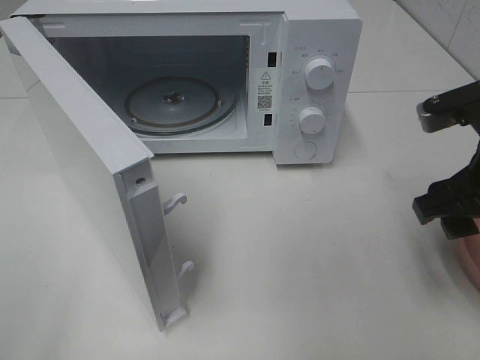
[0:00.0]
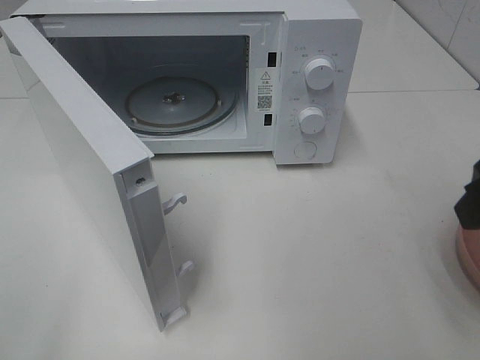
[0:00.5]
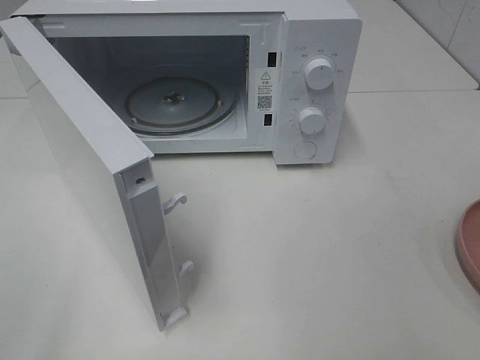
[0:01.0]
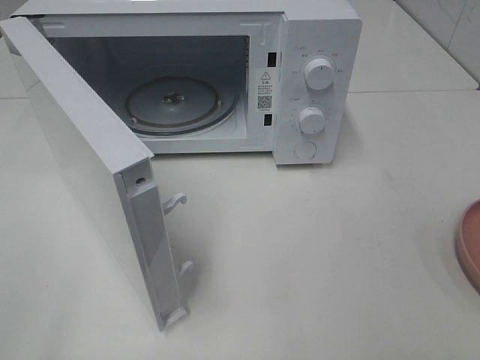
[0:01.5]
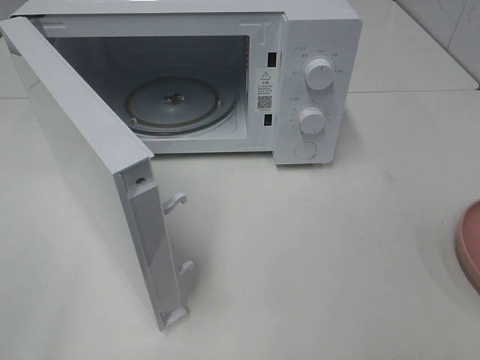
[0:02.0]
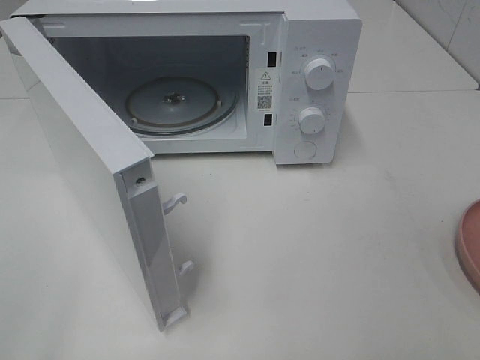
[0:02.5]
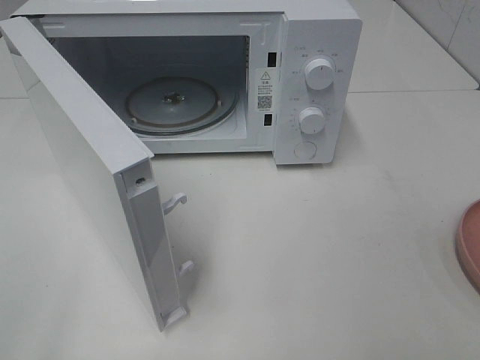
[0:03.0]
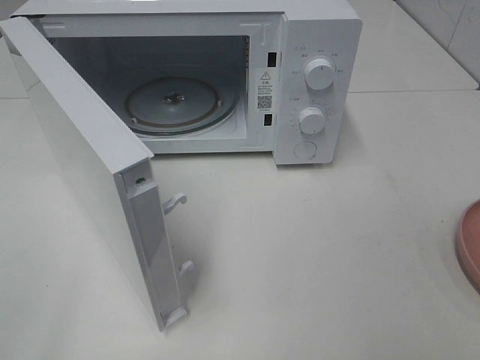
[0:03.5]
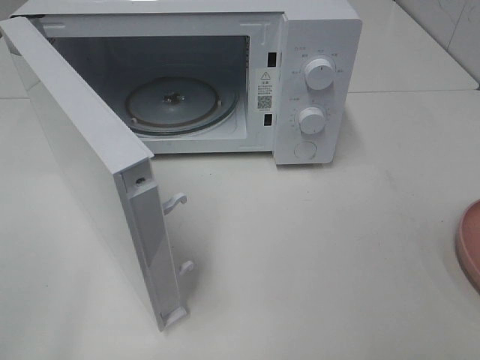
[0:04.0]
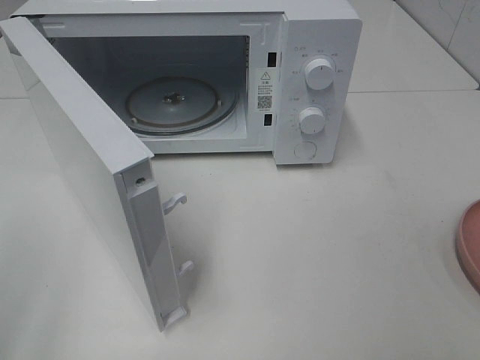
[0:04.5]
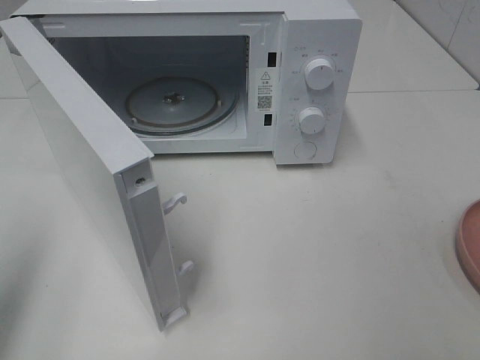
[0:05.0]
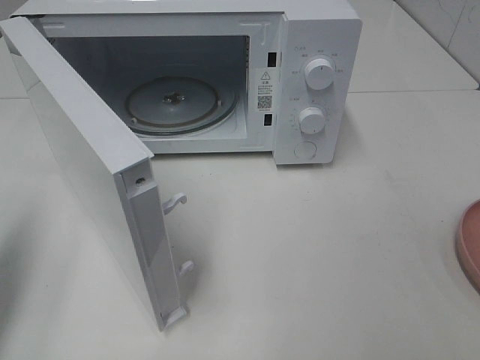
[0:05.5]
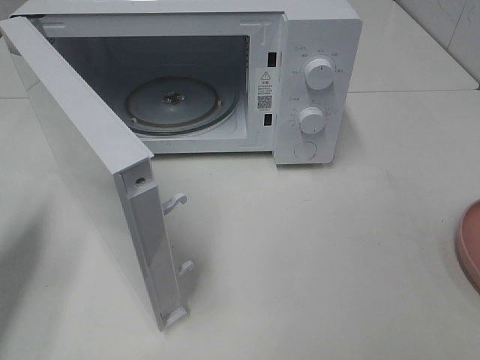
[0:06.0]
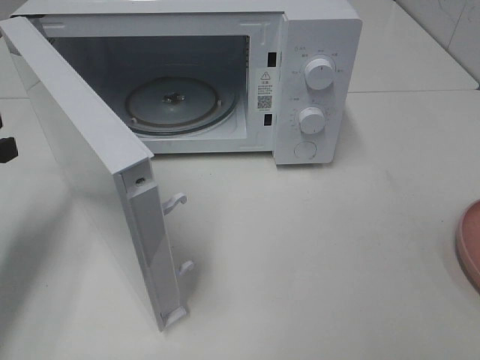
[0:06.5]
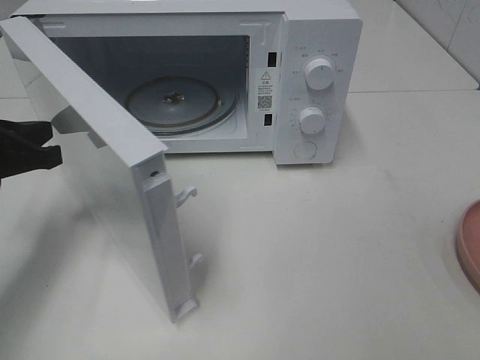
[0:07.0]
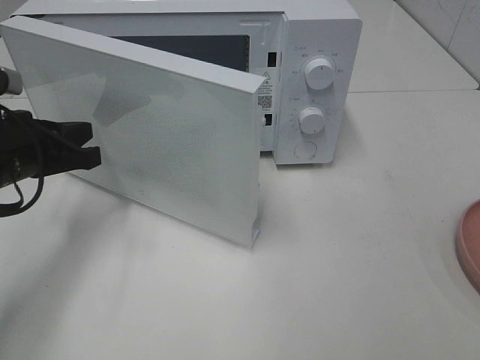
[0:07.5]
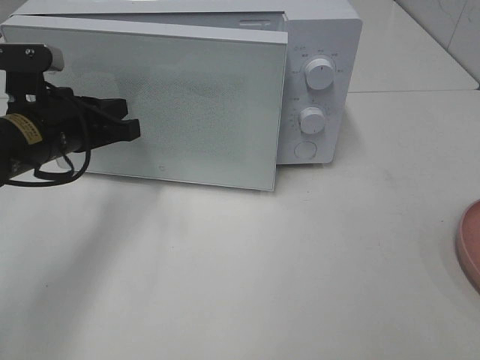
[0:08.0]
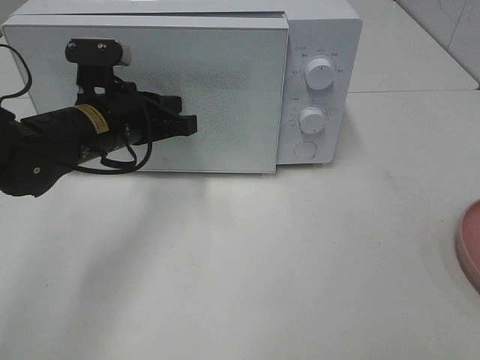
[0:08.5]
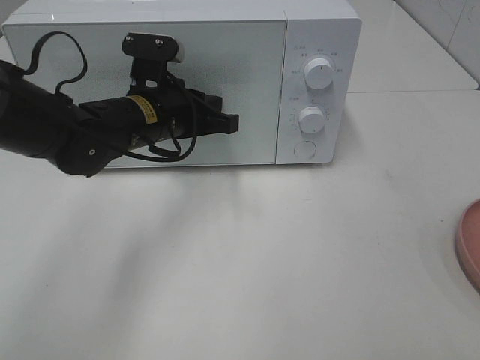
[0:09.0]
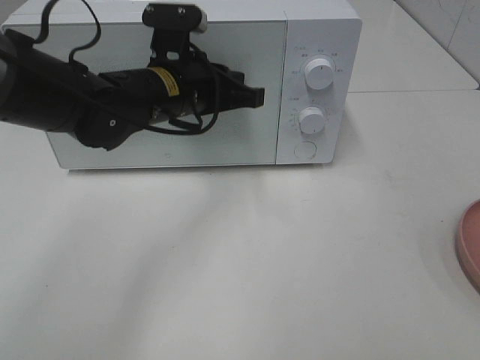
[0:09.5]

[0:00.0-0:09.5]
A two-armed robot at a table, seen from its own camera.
Task of the whole recording: Heat the burger.
0:00.0 to 0:02.0: The right gripper shifts approximately 20 cm backward.
0:04.0 to 0:05.5: The left gripper goes roughly 15 cm forward, and closes.
0:05.5 to 0:07.5: The left gripper travels forward, to the right and downward by some 15 cm.
0:07.5 to 0:09.5: The left gripper goes about 20 cm to the right and forward.

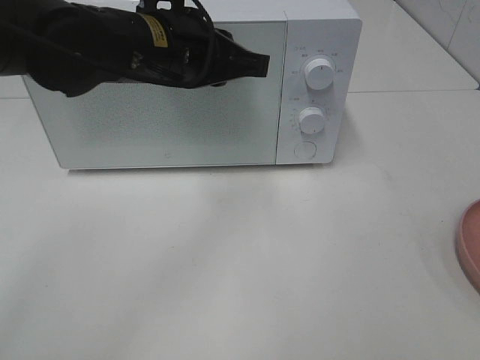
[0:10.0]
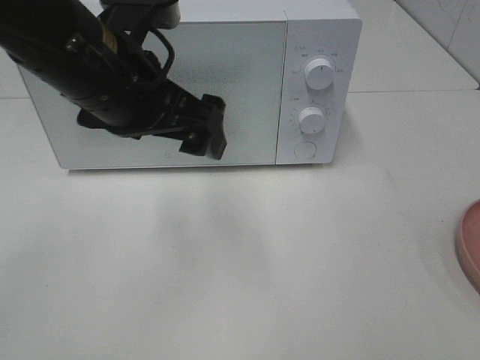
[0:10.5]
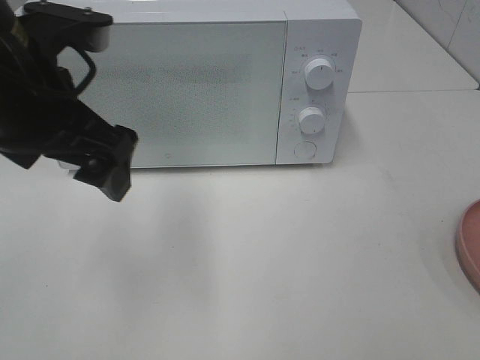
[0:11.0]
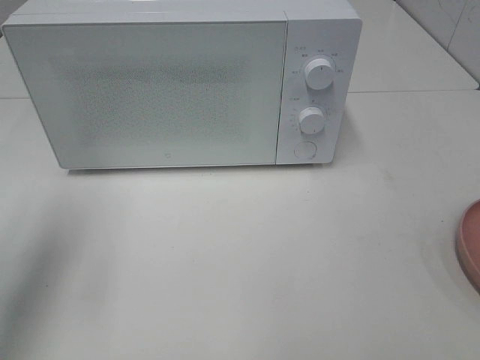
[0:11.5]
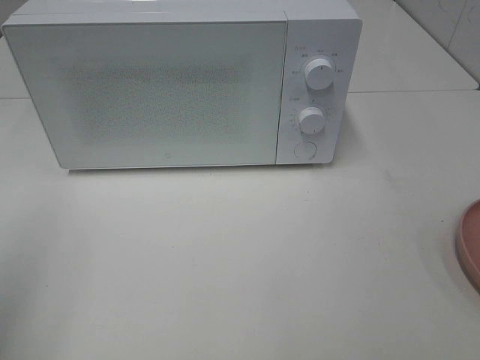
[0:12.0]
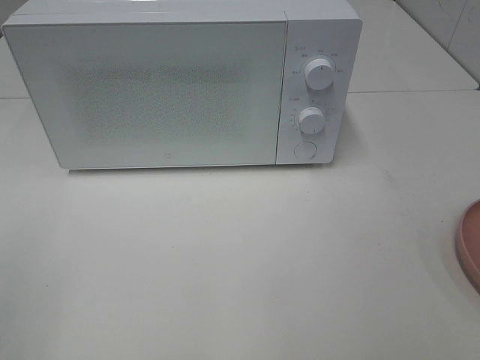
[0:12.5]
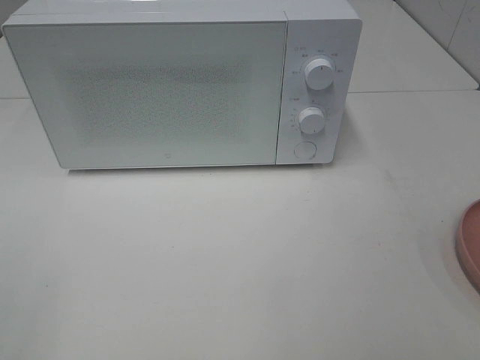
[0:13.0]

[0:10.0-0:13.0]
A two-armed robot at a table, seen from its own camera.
Task of the whole recording: Heat the burger.
0:10.0 to 0:11.5: The left gripper is displaced to the left and backward by about 25 cm, and opens its fingers.
0:11.5 to 0:13.0: The left gripper goes approximately 20 cm backward.

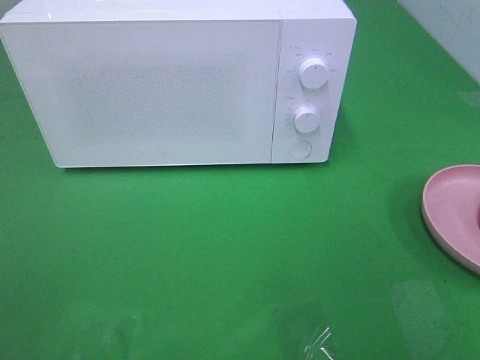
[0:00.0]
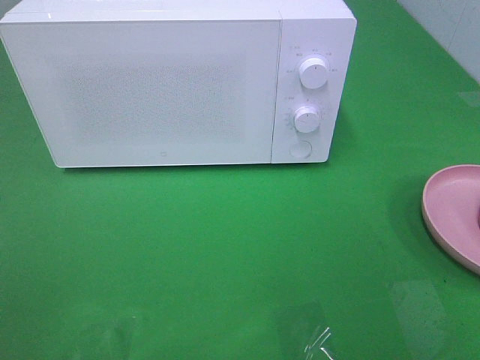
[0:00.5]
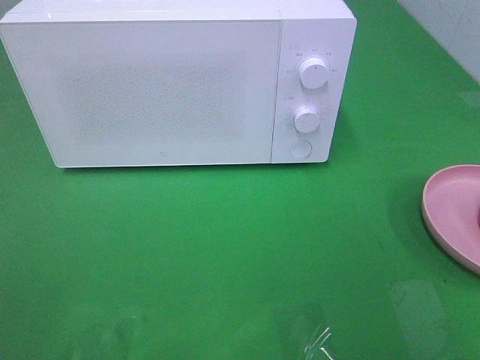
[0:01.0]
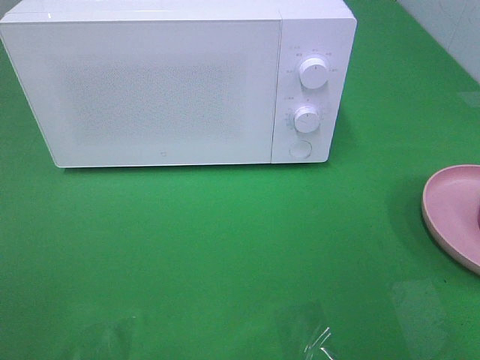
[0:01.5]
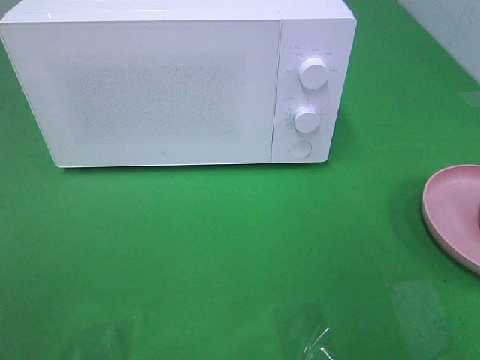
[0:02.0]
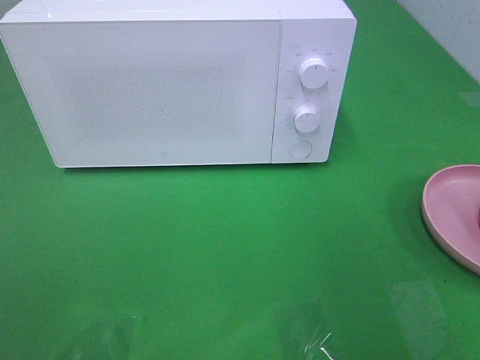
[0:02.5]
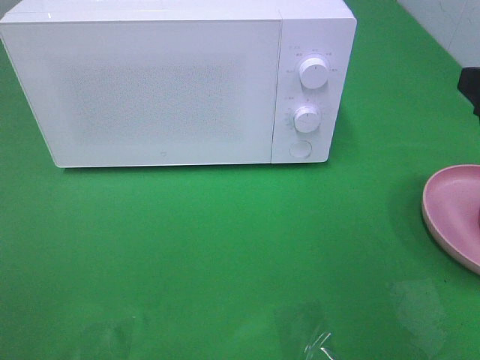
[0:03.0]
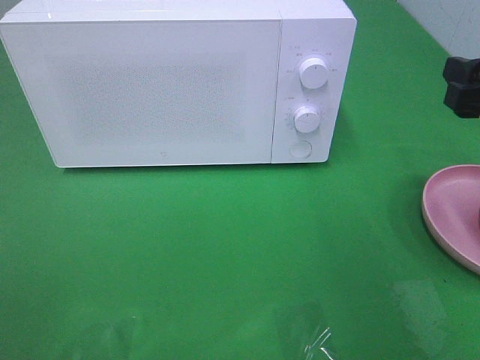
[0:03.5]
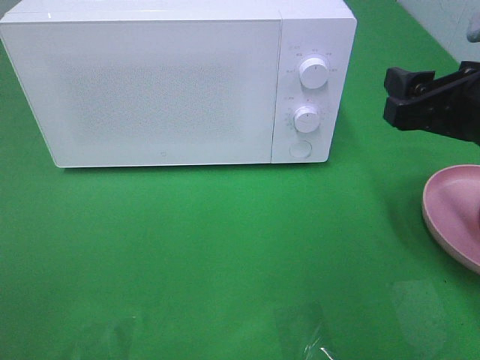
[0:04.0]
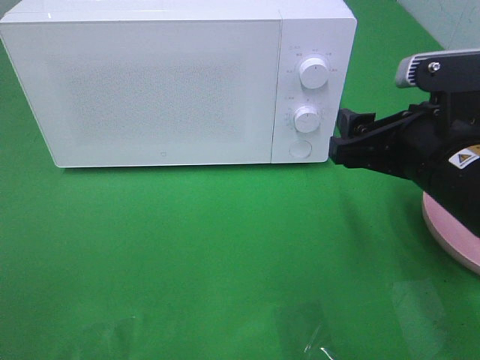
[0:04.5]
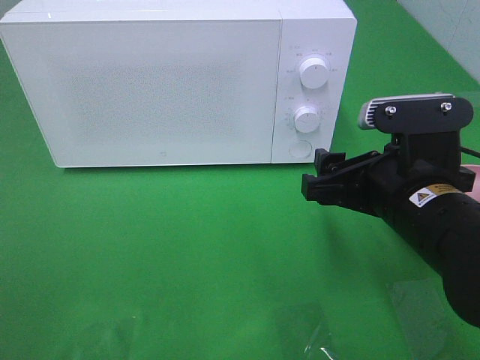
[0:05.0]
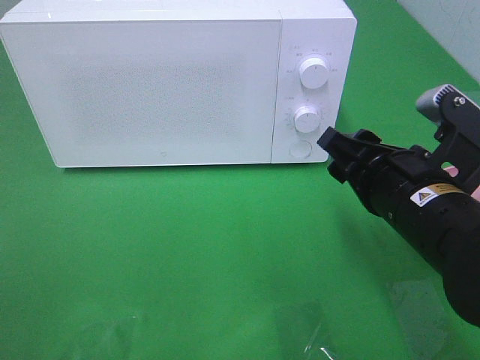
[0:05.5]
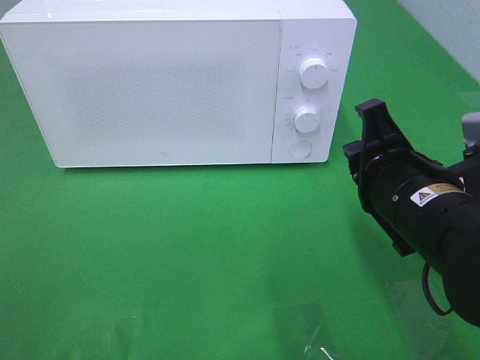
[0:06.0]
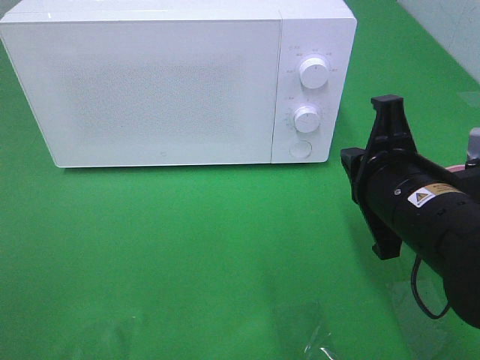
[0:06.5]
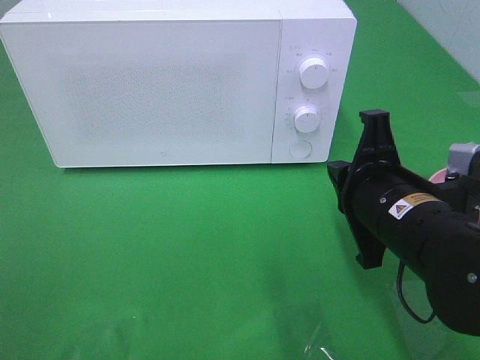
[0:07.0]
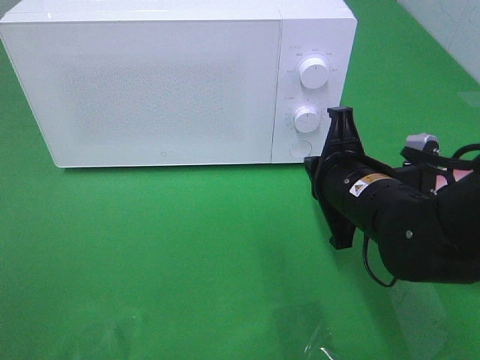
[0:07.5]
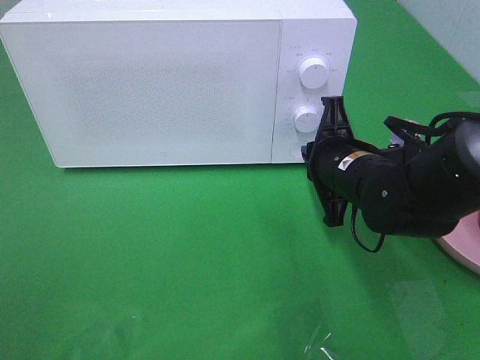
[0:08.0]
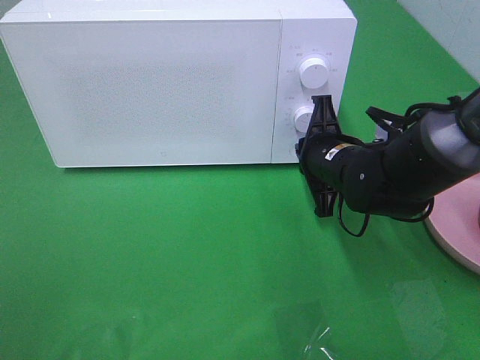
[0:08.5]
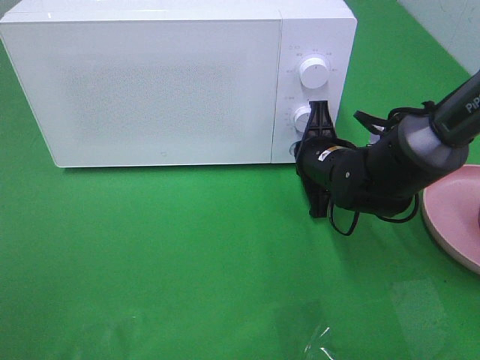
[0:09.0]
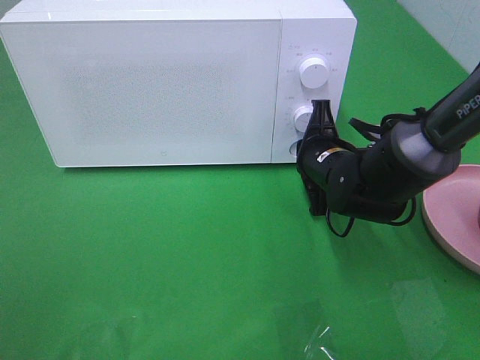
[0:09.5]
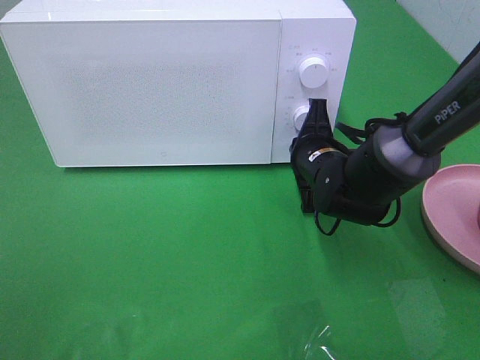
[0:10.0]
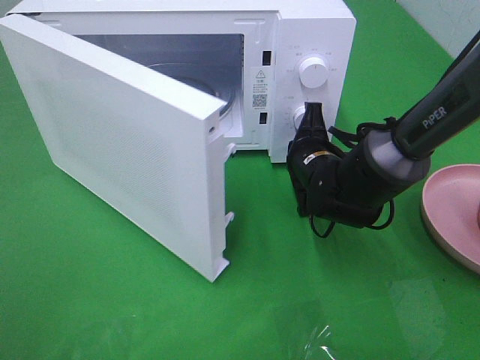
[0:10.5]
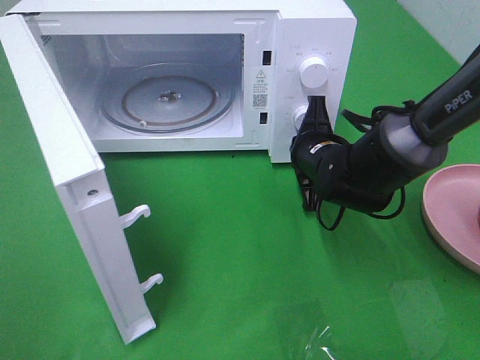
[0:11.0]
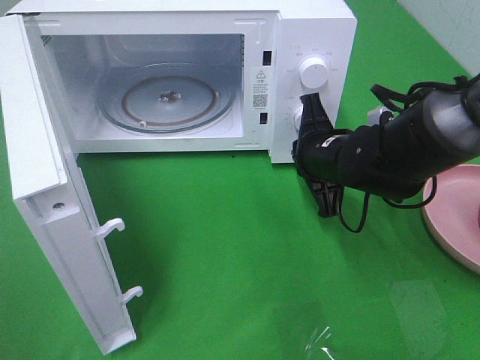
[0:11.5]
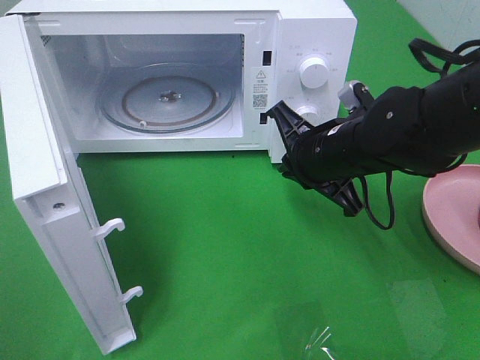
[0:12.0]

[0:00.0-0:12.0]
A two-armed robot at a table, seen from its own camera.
Task of the whole recording: Heat the burger.
Step, 0:00.0 to 0:11.5: Right hand: press the switch.
0:02.0 to 0:04.0: The right gripper goes some 15 cm forward, downward and to the left.
0:04.0 to 0:06.0: The right gripper shifts about 10 cm to the left and downward, and closes up.
0:06.0 to 0:08.0: The right gripper travels forward and downward by some 10 cm.
0:08.0 to 0:10.0: The right gripper travels forward by some 5 cm.
0:10.0 to 0:12.0: The right gripper goes approximately 5 cm upward.

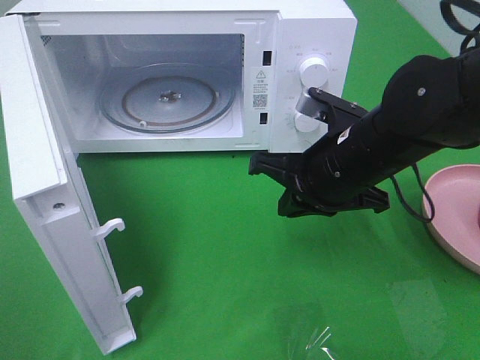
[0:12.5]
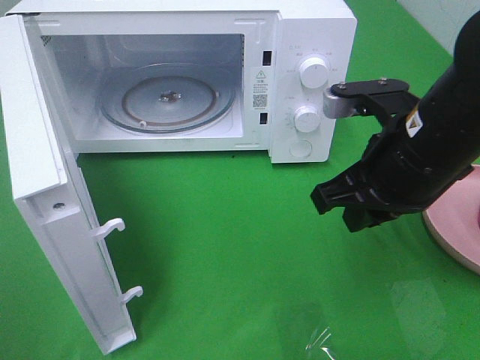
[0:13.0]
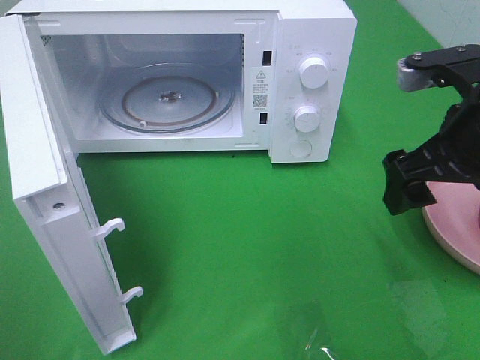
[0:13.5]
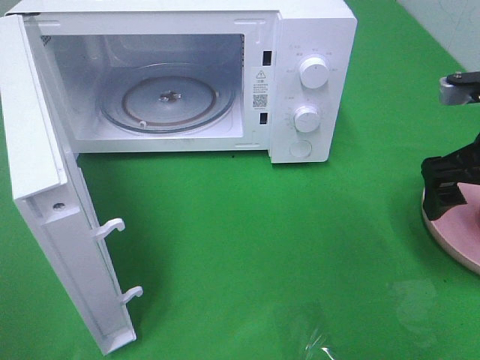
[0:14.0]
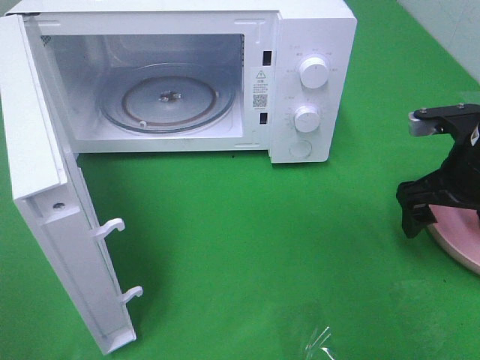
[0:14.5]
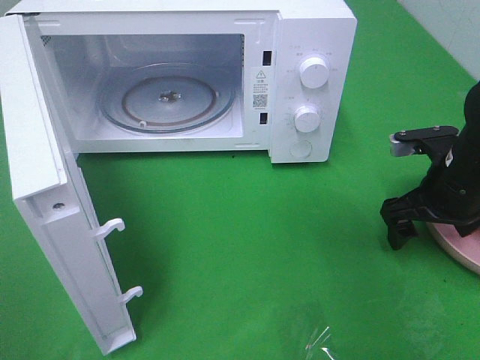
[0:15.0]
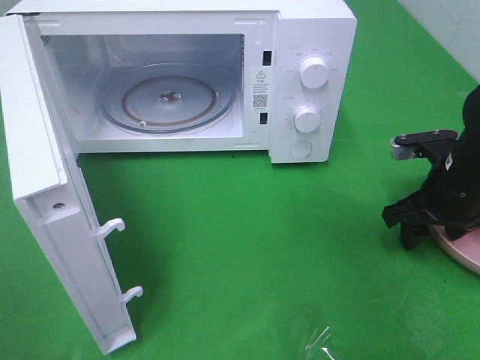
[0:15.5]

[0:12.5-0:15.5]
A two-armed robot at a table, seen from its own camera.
Task of the whole recording: Heat the burger.
0:12.5 to 0:14.0: The right gripper moves to the right, roughly 15 cm, and opens its fingers.
0:14.0 to 0:15.5: The right gripper travels downward by approximately 10 cm, and closes.
